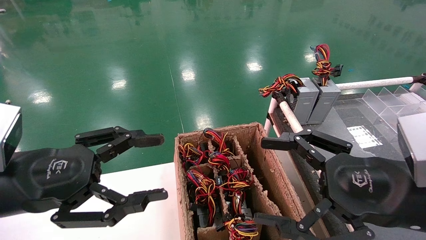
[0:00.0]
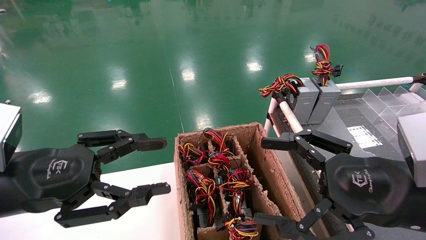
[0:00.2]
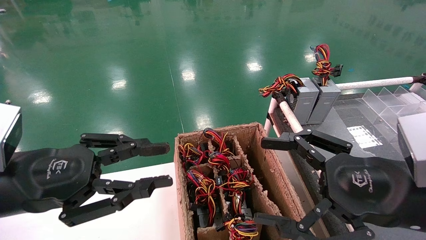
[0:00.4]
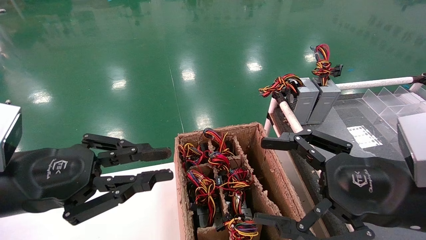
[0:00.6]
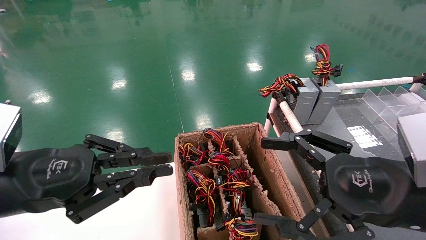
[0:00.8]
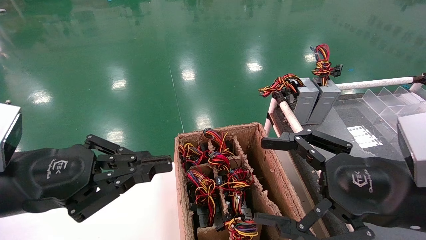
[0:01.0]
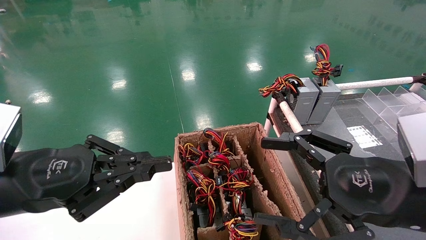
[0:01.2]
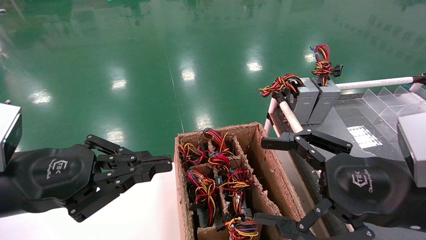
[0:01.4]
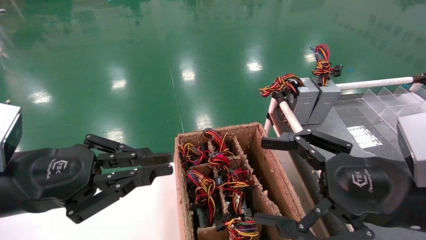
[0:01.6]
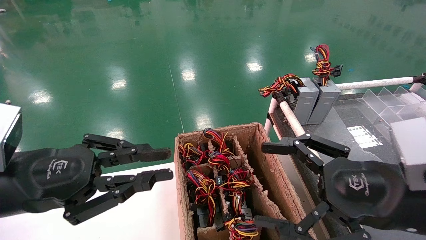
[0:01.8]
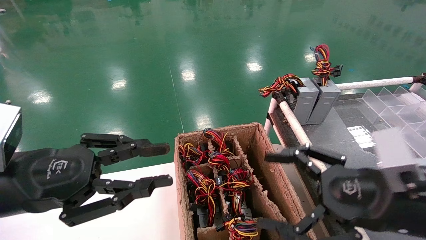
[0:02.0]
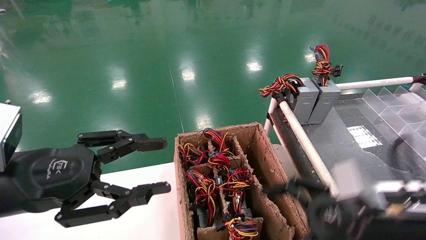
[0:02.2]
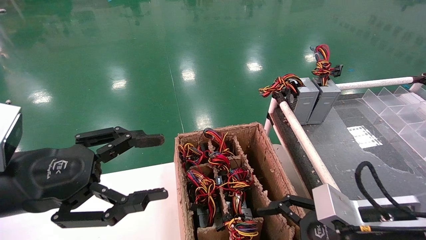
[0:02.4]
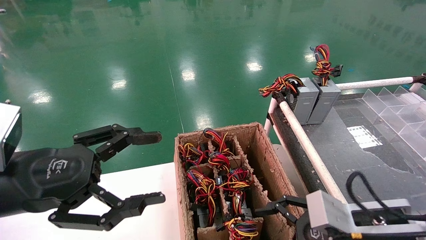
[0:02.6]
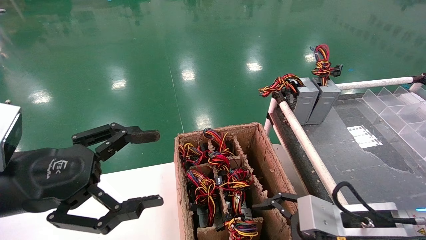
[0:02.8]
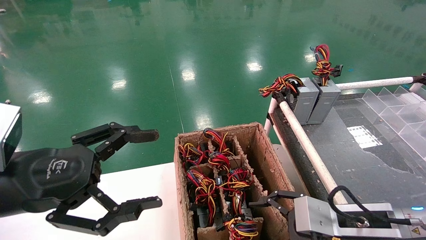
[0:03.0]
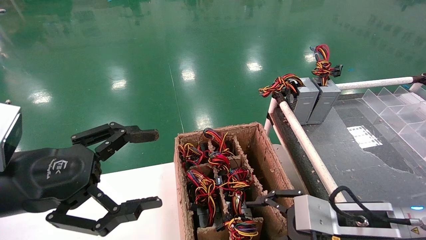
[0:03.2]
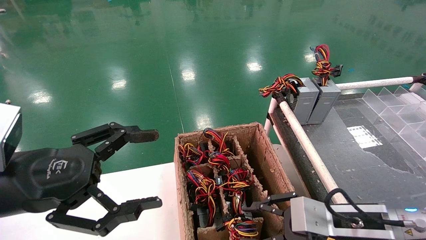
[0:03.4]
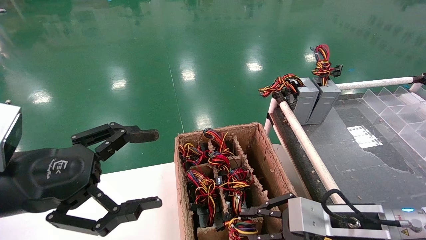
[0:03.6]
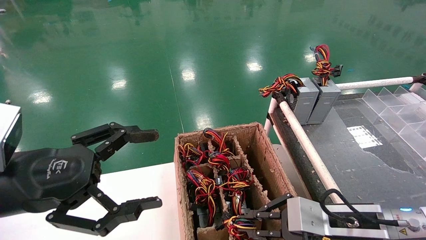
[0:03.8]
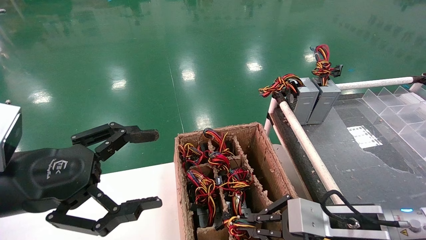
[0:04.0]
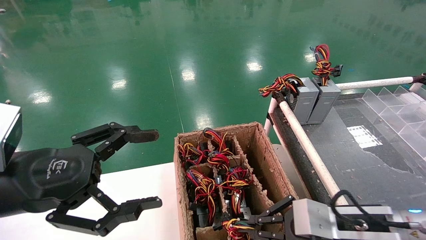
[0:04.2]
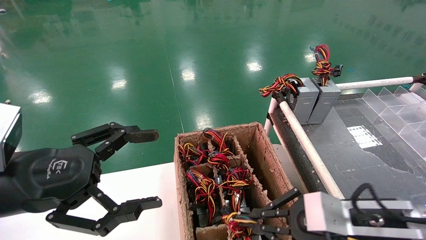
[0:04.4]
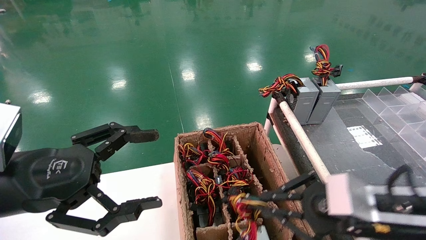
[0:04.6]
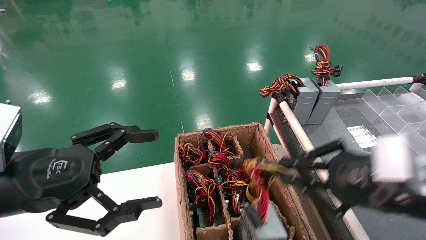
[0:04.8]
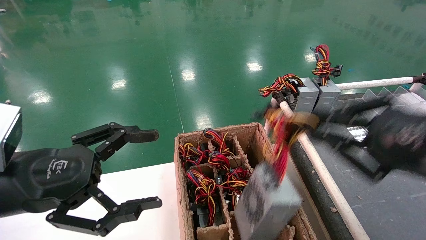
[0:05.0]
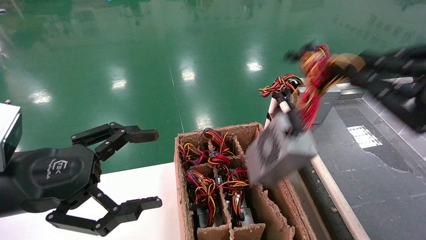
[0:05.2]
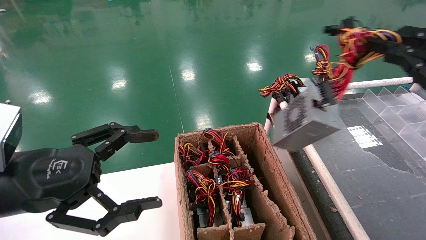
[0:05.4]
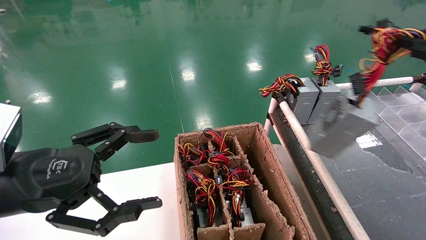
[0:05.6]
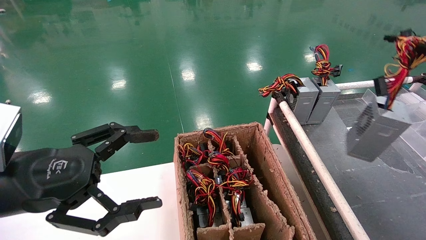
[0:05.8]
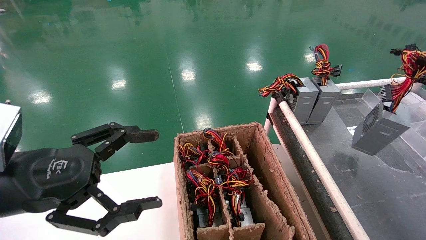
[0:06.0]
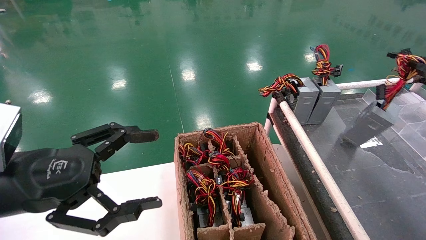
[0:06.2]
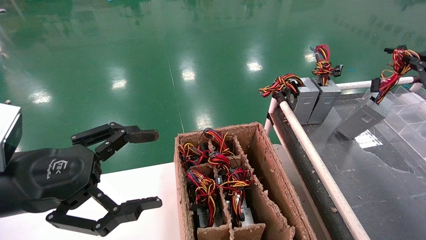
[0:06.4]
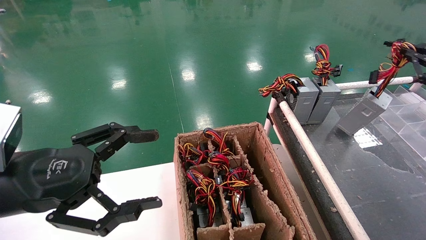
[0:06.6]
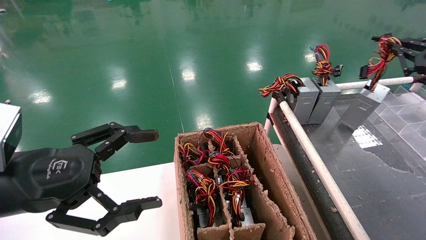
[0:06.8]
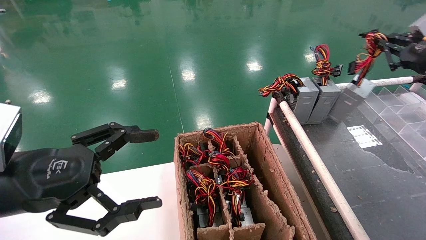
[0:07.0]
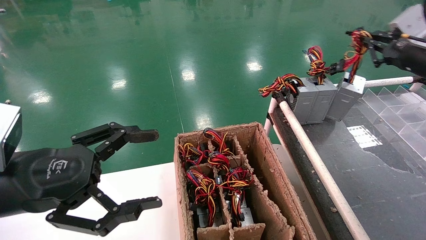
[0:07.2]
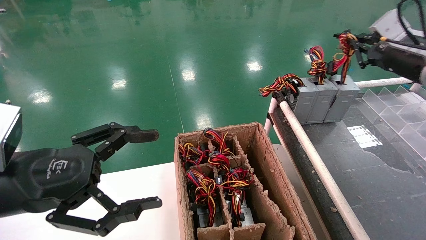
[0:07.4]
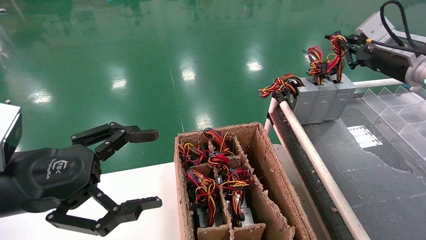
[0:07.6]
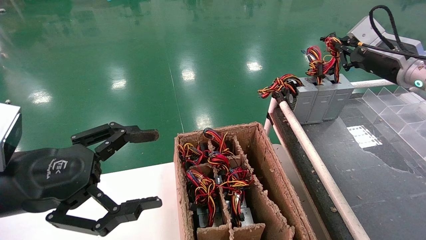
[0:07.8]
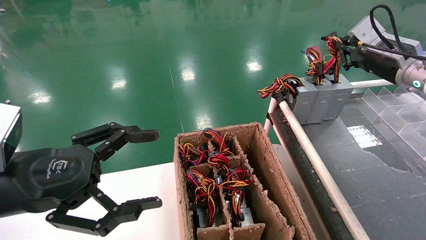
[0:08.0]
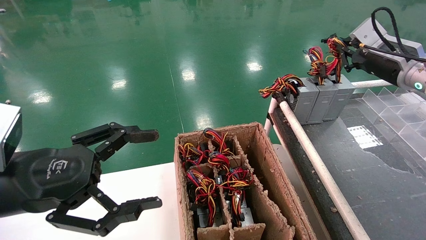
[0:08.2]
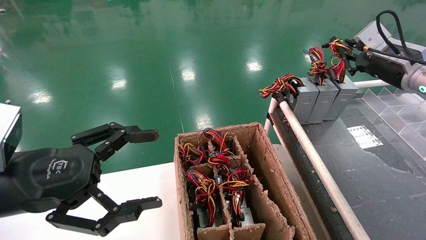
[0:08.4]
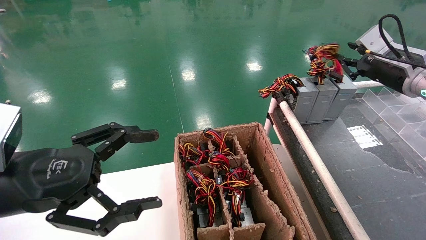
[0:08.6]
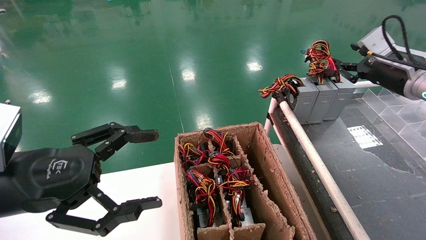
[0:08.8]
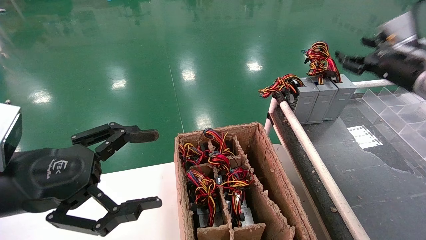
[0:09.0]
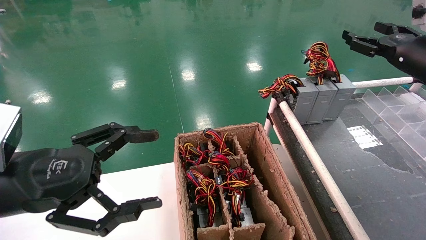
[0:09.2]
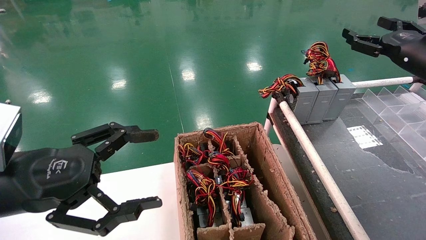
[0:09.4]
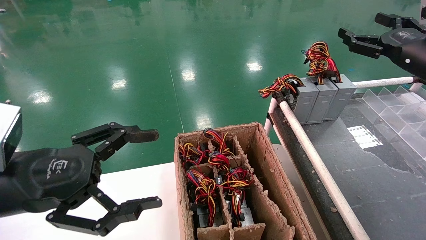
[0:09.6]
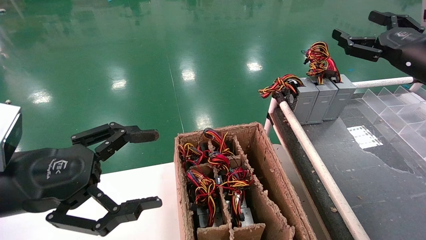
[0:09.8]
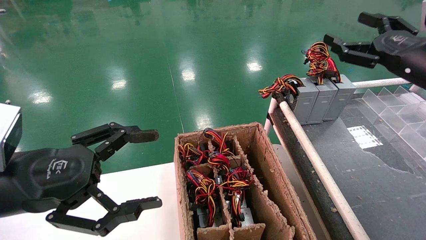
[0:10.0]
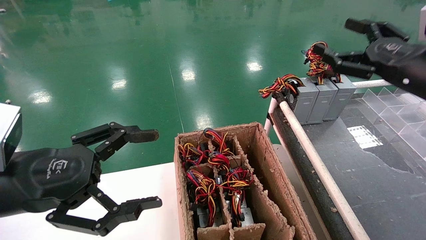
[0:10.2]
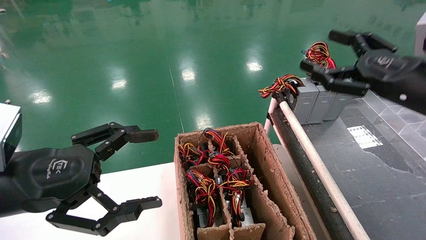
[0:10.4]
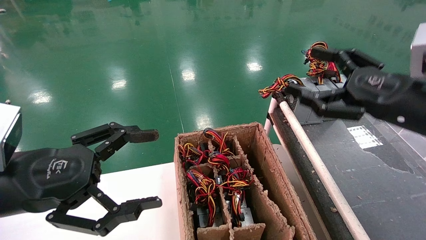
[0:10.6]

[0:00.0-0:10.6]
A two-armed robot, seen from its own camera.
Step, 0:00.6 to 0:03.8: Grab and lift the power supply from the large box.
Step, 0:04.0 to 0:08.2: Place the power supply on the operating table.
0:00.0 to 0:01.6: The left gripper closes up.
0:01.6 to 0:03.0: The right gripper moves downward and forward, about 10 cm; the left gripper opens its fingers.
0:03.0 to 0:04.6: The right gripper goes about 5 cm upward, and closes.
0:04.6 to 0:06.0: The right gripper goes about 25 cm to the right and upward.
0:06.0 to 0:07.6: The right gripper moves forward and to the left, approximately 20 cm.
0:07.6 to 0:09.0: The right gripper opens up.
0:09.0 to 0:10.6: The right gripper goes approximately 15 cm backward and to the left, and opens its fingers.

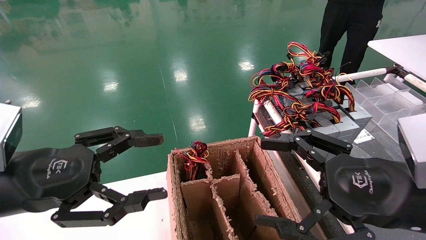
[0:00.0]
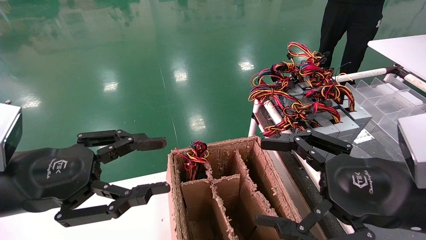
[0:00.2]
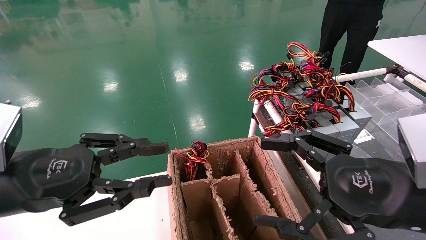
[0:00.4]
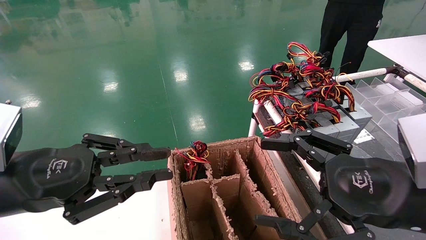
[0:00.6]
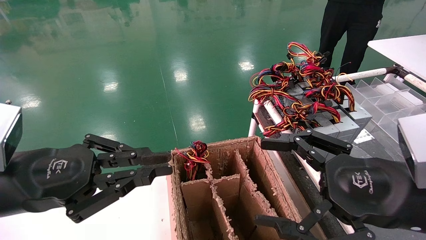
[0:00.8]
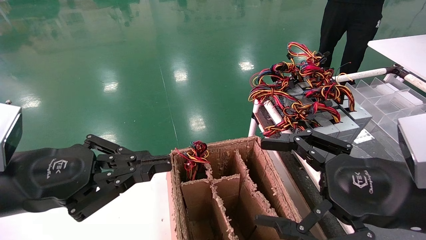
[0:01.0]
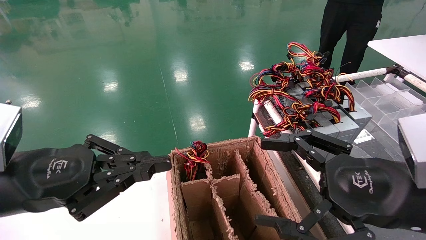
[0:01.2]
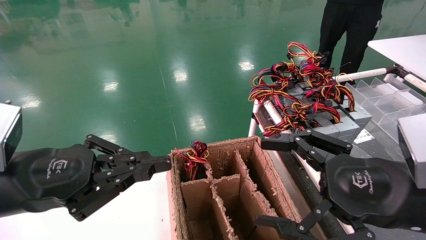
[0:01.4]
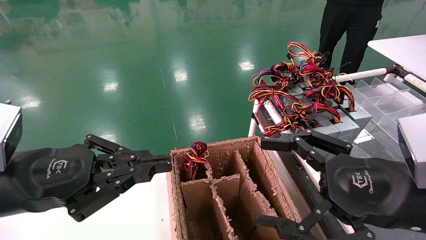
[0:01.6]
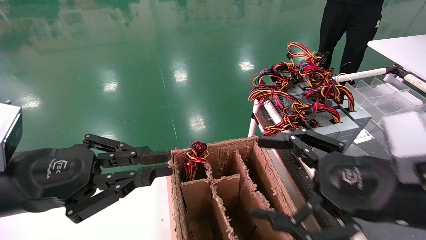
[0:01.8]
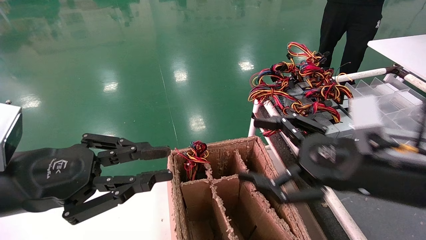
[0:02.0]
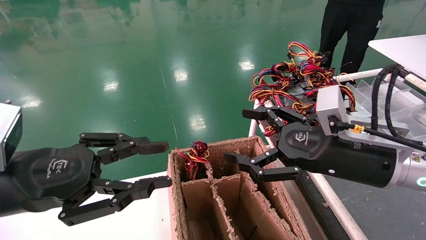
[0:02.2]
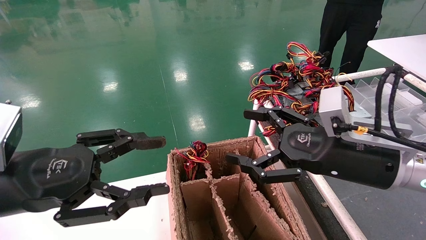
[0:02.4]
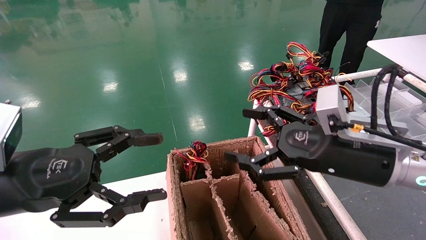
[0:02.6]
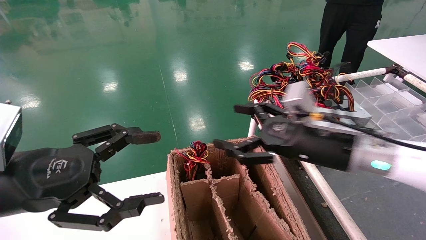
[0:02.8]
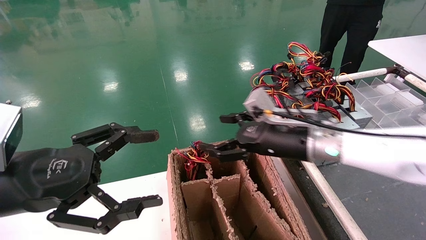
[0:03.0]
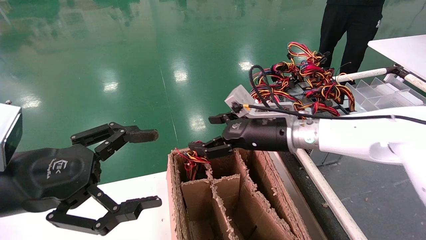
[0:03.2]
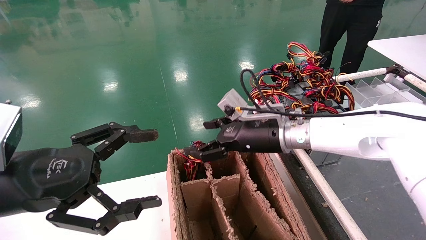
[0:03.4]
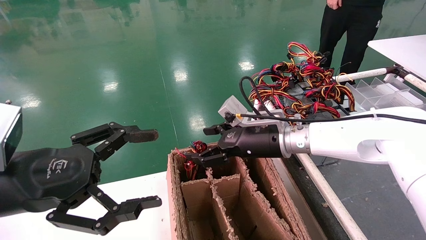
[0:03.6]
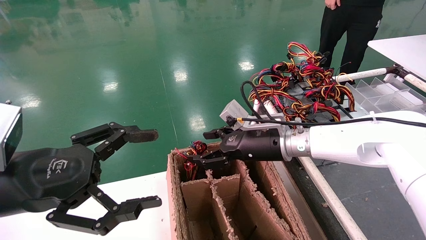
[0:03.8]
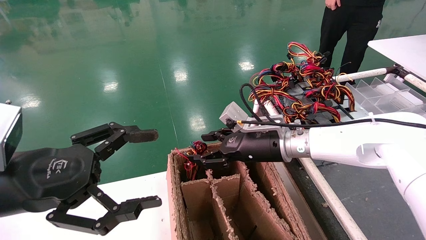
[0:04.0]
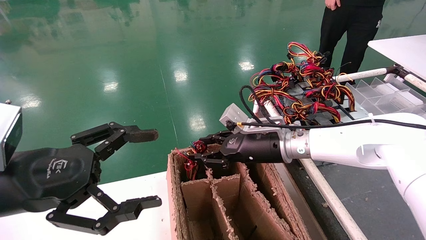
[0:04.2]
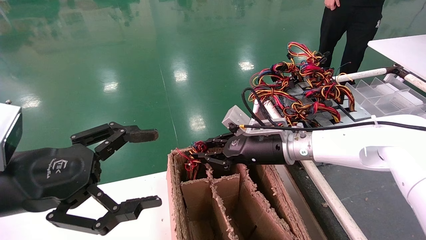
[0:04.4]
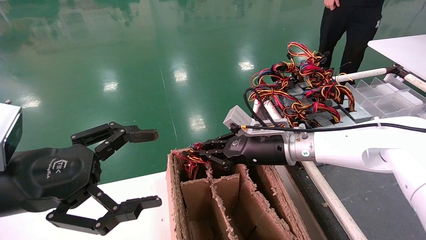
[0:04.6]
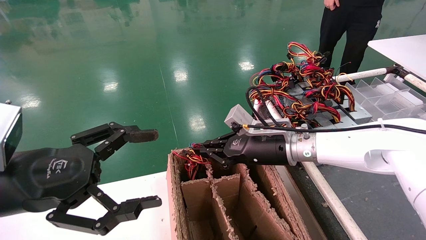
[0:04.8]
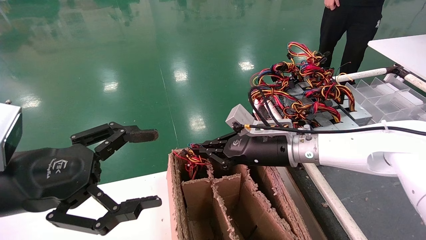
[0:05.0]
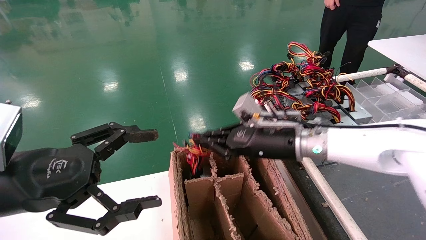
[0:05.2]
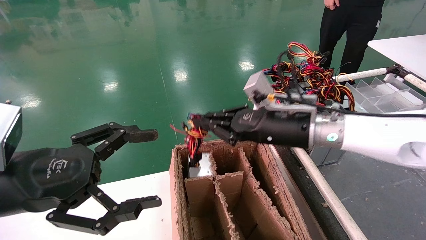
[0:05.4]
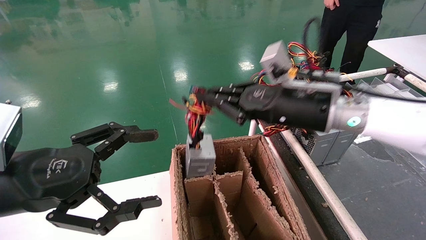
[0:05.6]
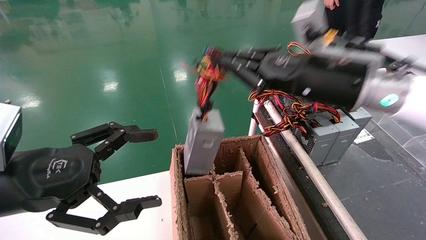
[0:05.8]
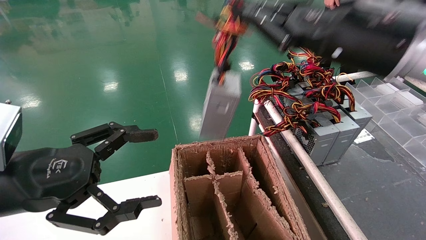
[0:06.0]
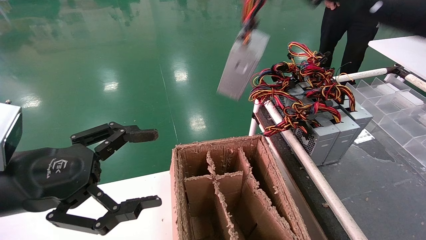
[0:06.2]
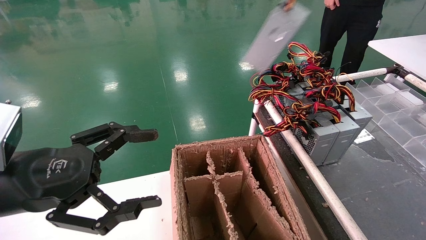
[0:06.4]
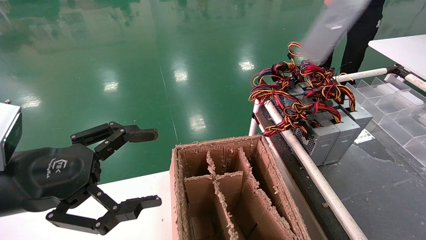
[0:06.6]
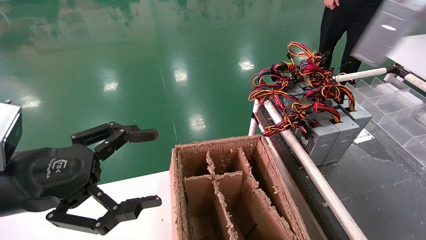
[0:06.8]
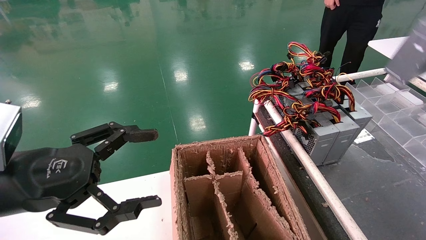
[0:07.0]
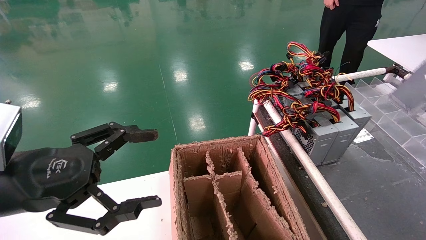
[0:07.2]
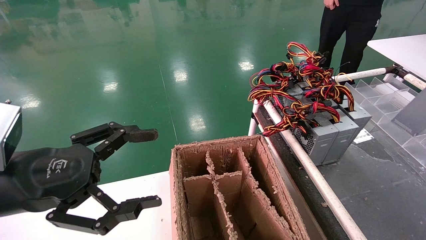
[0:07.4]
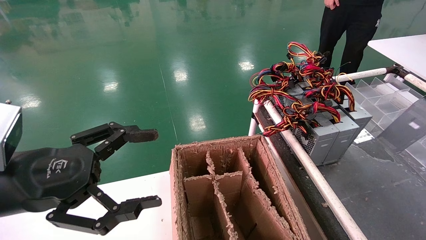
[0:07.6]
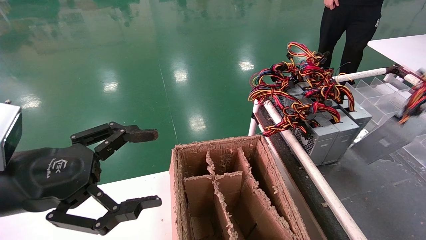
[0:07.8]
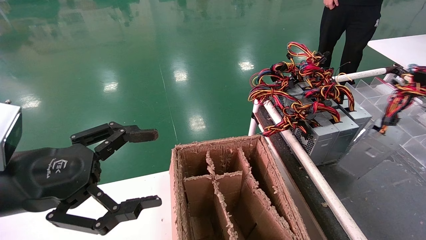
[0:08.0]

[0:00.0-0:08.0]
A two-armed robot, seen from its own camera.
Step, 0:01.2 to 0:04.8: Grab and lift the power supply from the large box.
0:00.0 to 0:01.6: The left gripper closes its fingers.
0:01.6 to 0:03.2: The left gripper opens, while the right gripper travels forward and to the left by about 25 cm.
0:03.2 to 0:04.8: The right gripper closes.
0:04.8 to 0:06.4: The right gripper moves upward, to the right and backward, about 35 cm.
0:06.4 to 0:08.0: The right gripper travels downward, to the right and backward by about 20 cm.
